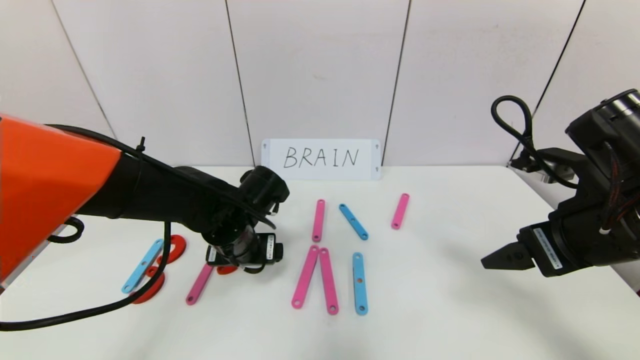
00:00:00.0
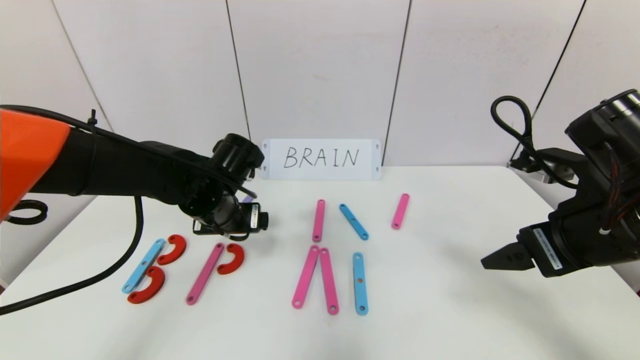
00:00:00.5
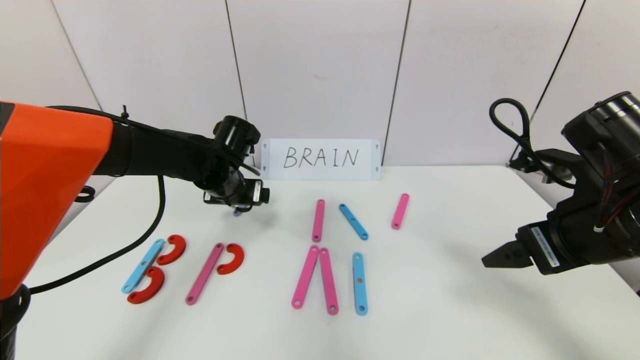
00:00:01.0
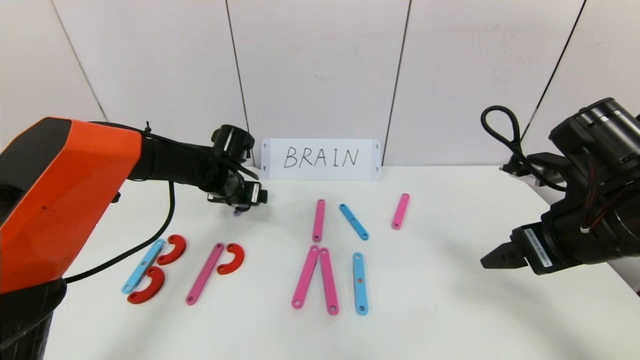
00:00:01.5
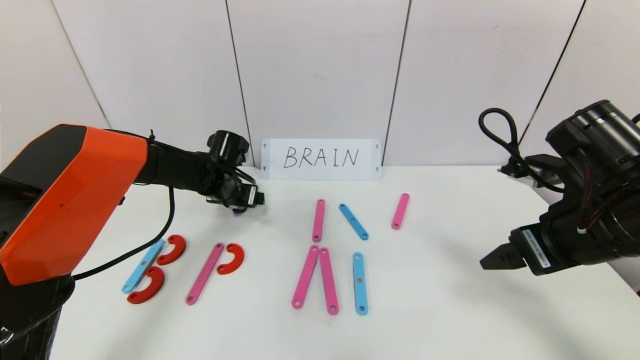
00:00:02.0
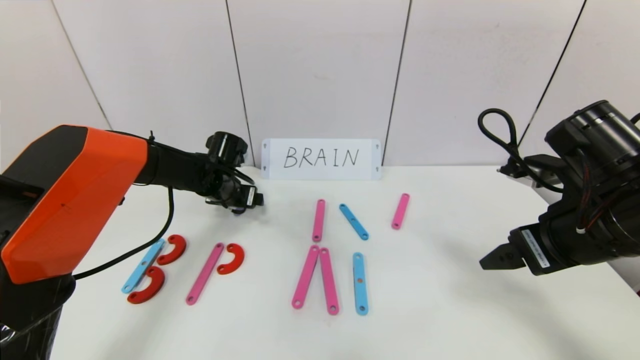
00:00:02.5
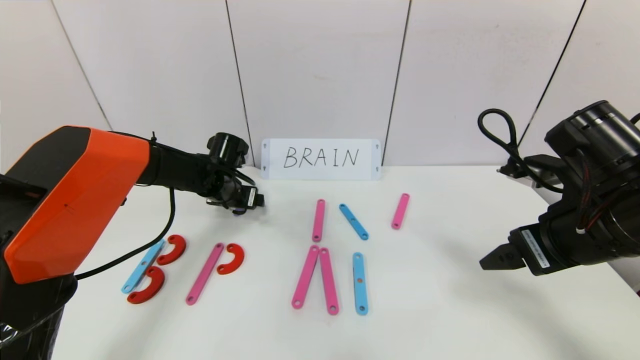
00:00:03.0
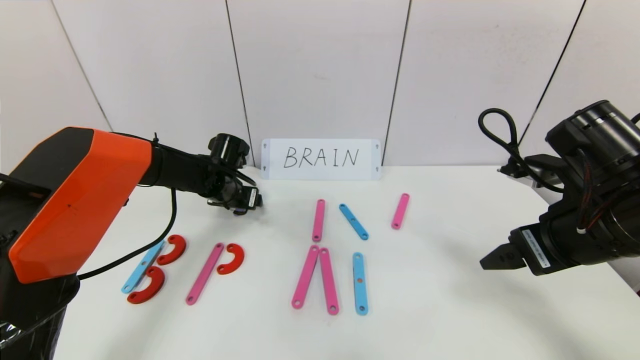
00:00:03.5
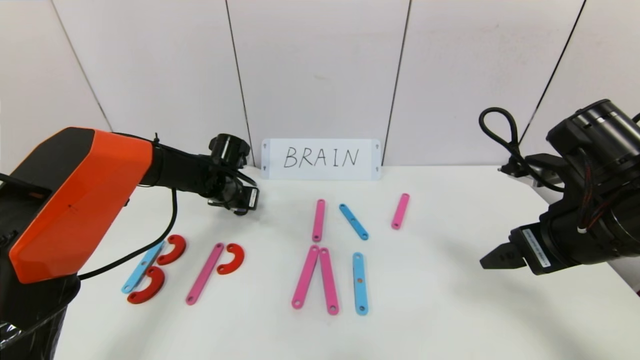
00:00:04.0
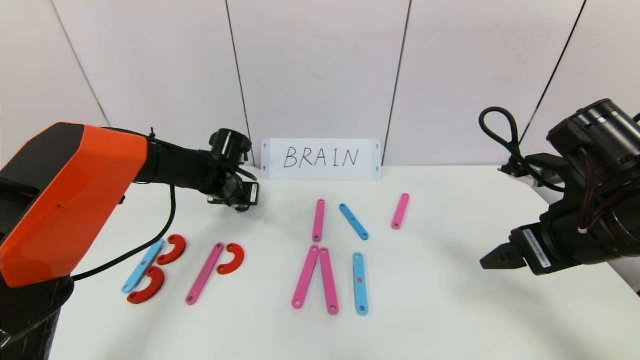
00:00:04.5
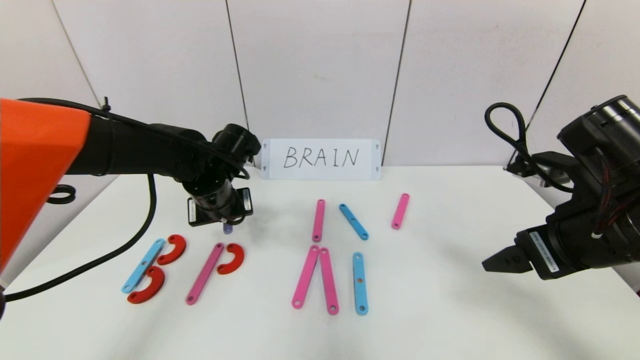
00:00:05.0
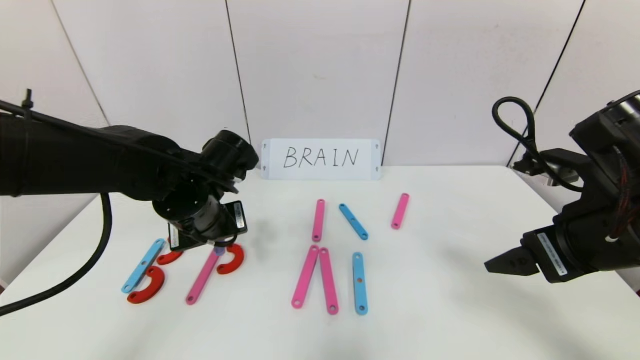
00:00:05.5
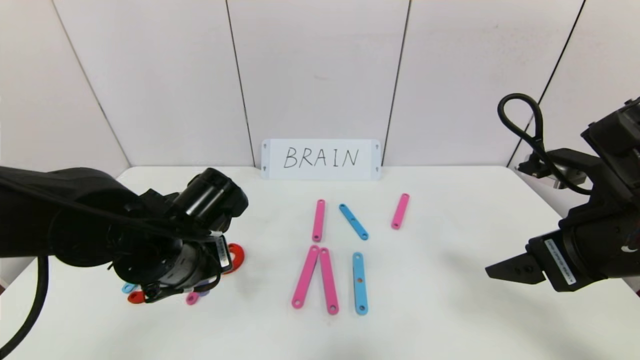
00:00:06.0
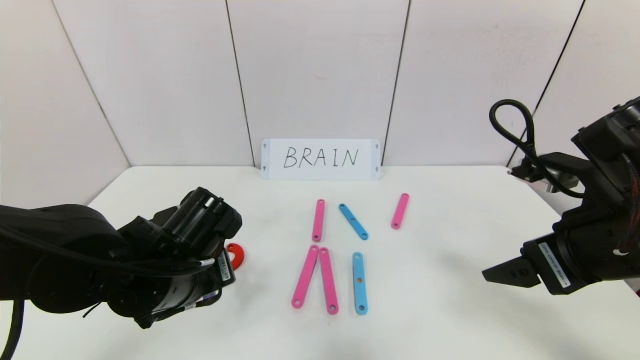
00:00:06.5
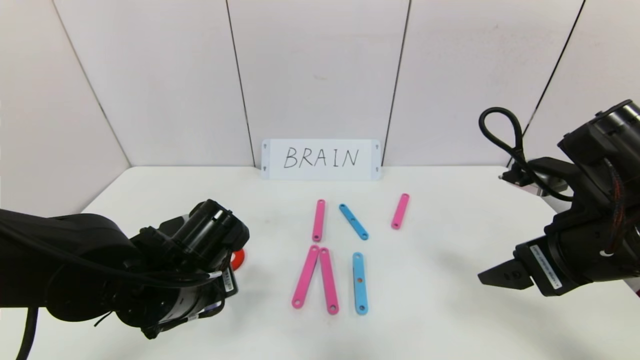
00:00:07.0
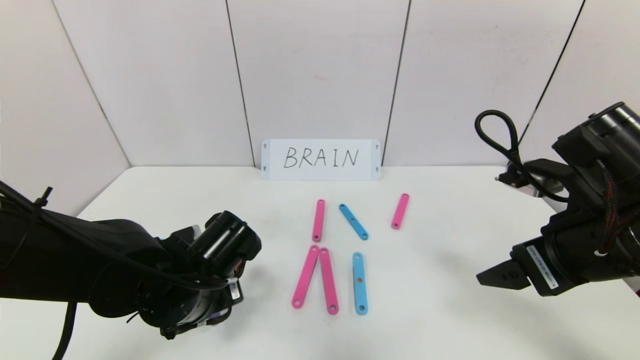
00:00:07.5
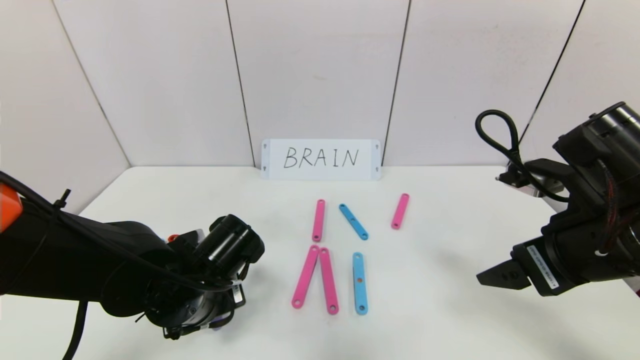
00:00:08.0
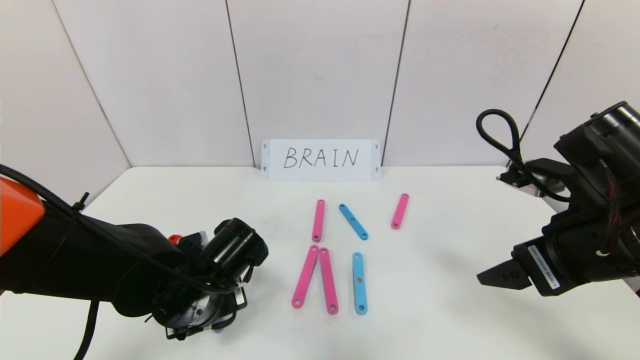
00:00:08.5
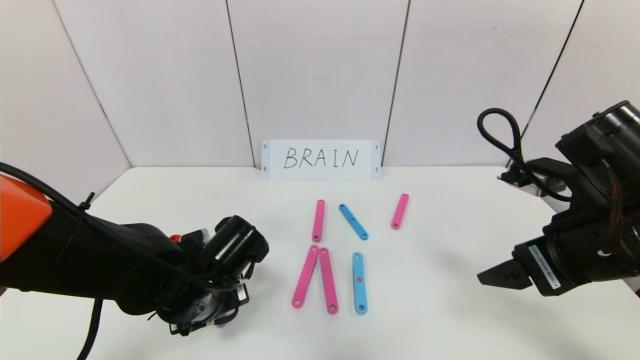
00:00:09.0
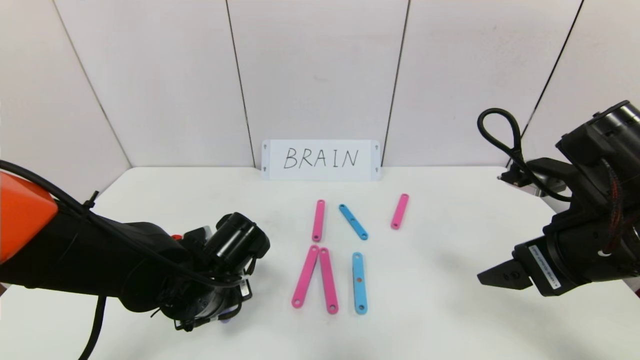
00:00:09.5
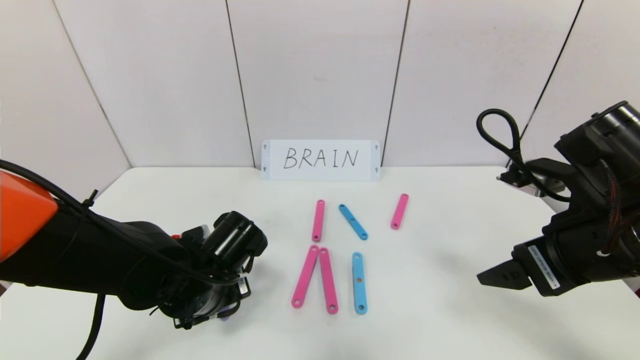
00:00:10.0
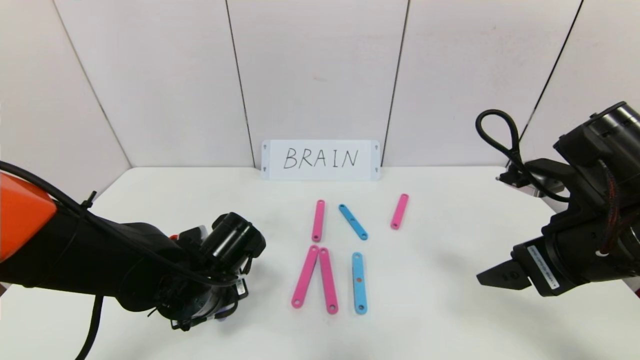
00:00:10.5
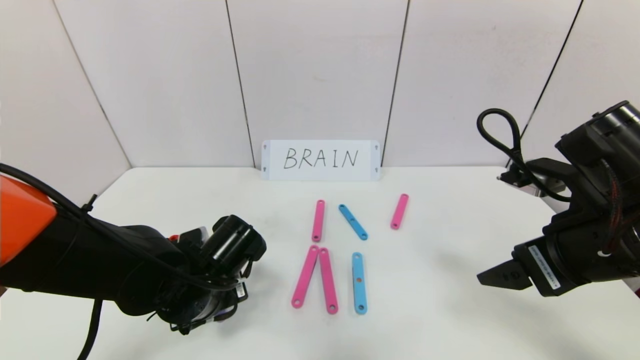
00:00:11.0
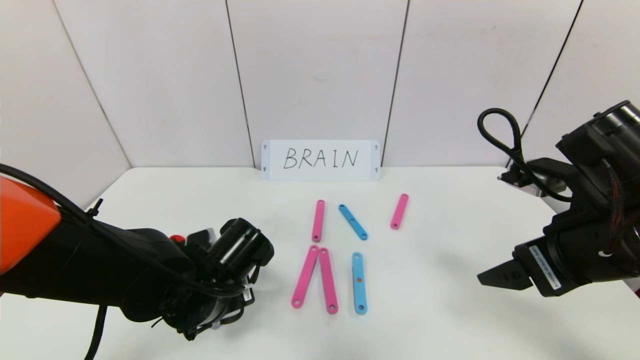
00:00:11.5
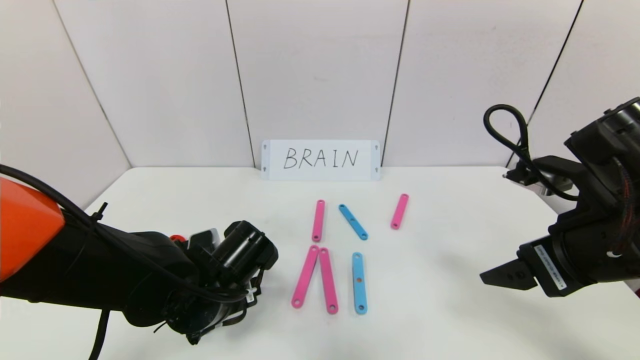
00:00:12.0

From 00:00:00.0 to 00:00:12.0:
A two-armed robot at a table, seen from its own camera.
Task of the whole recording: rearrange the word baai as brain.
From 00:00:00.0 to 00:00:02.0: The left gripper heads forward and to the left, covering roughly 15 cm.
From 00:00:02.0 to 00:00:04.0: The left gripper closes.
From 00:00:04.0 to 00:00:06.0: The left gripper goes some 20 cm backward.
From 00:00:06.0 to 00:00:08.0: The left gripper is displaced downward by approximately 5 cm.
From 00:00:08.0 to 00:00:10.0: The grippers make only small movements.
From 00:00:10.0 to 00:00:12.0: The left gripper opens its fingers.

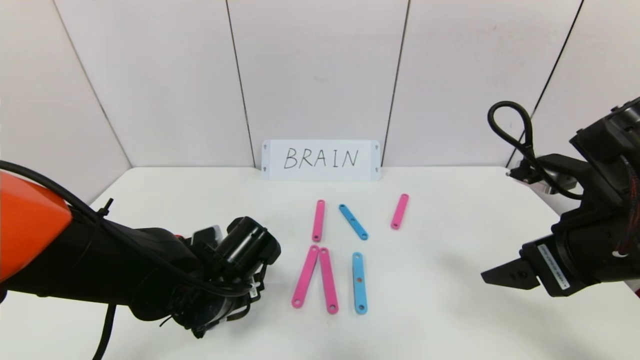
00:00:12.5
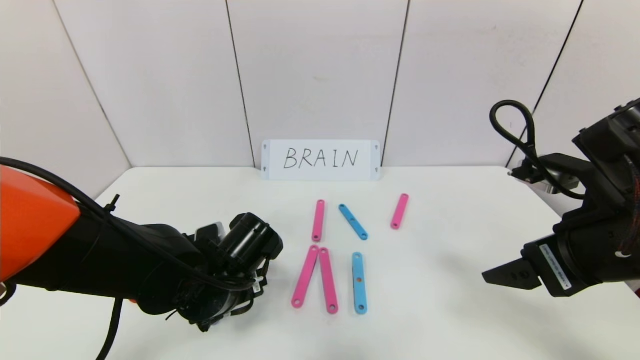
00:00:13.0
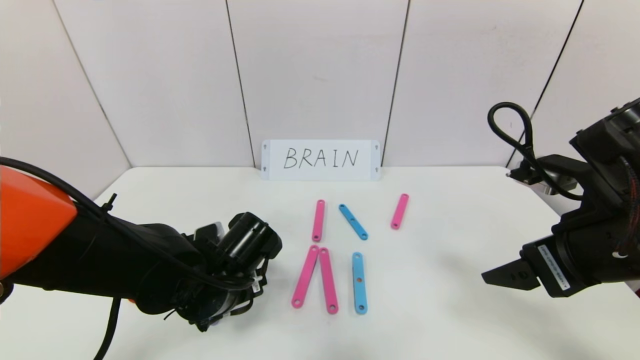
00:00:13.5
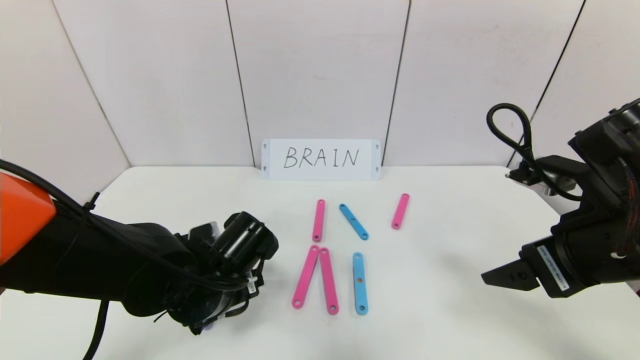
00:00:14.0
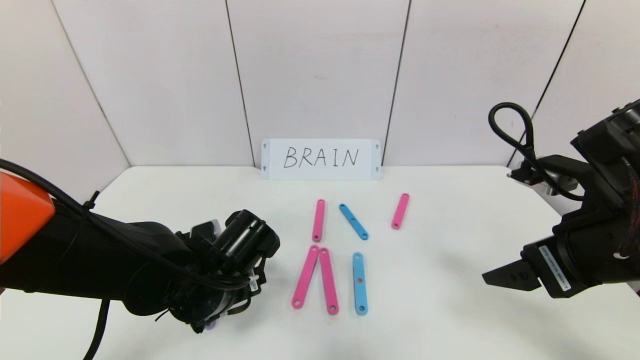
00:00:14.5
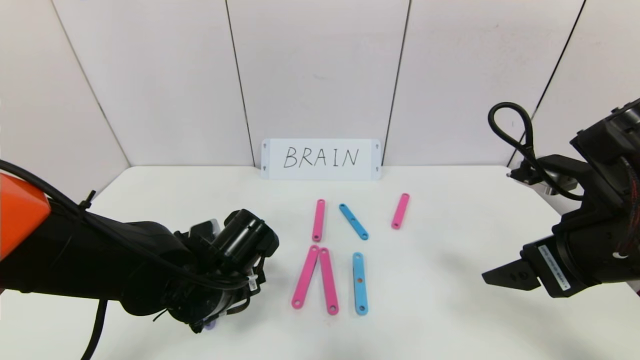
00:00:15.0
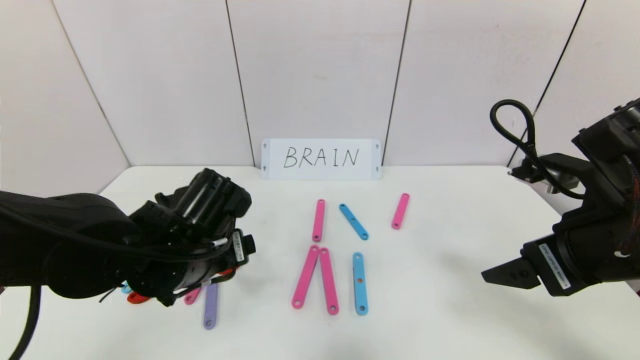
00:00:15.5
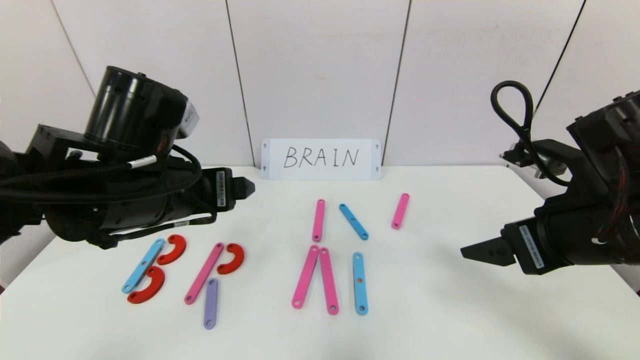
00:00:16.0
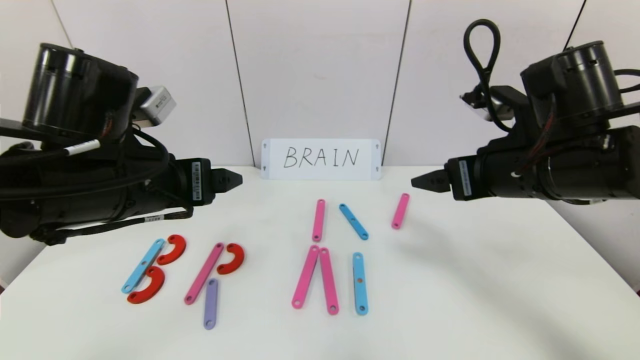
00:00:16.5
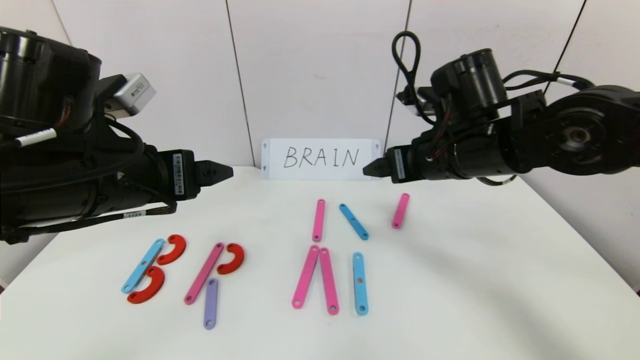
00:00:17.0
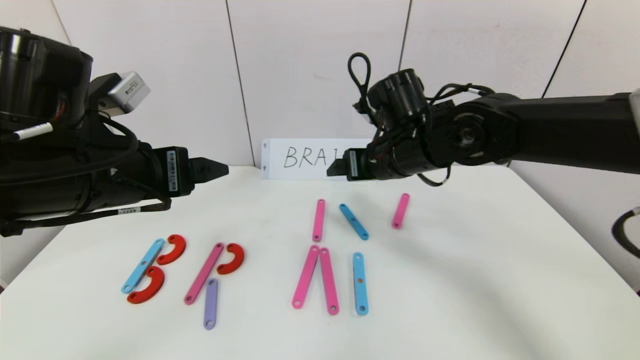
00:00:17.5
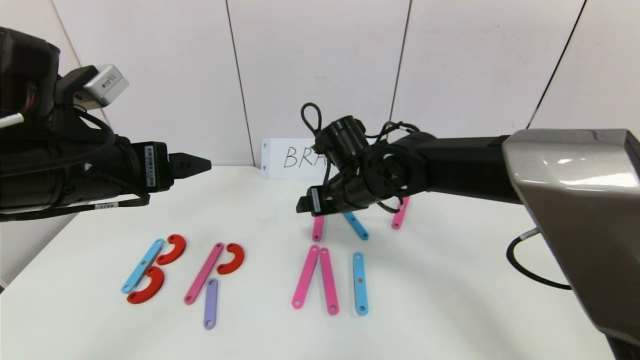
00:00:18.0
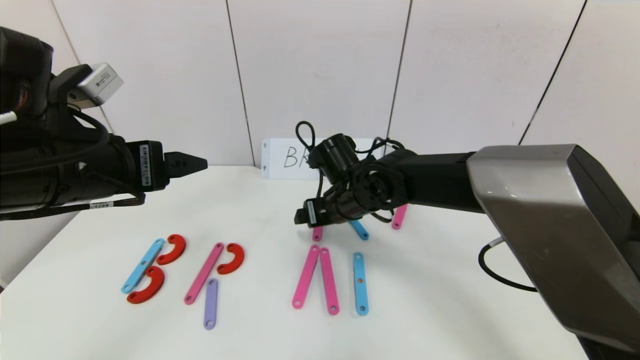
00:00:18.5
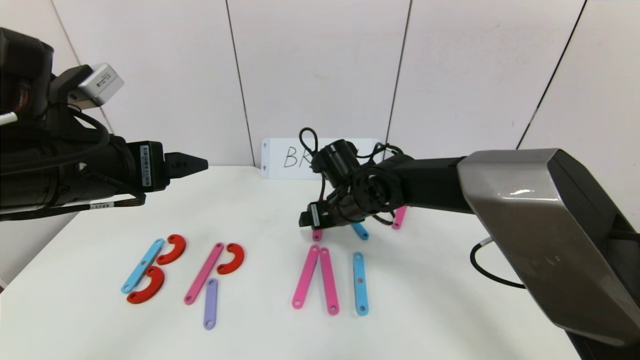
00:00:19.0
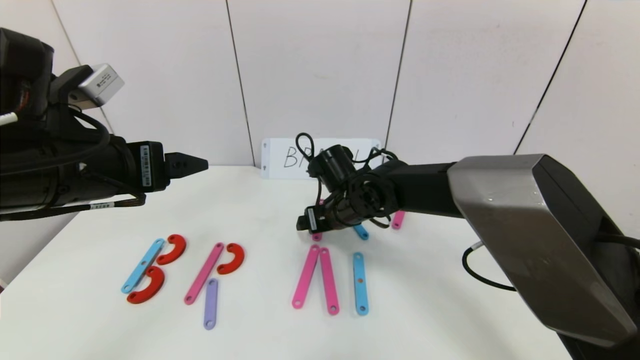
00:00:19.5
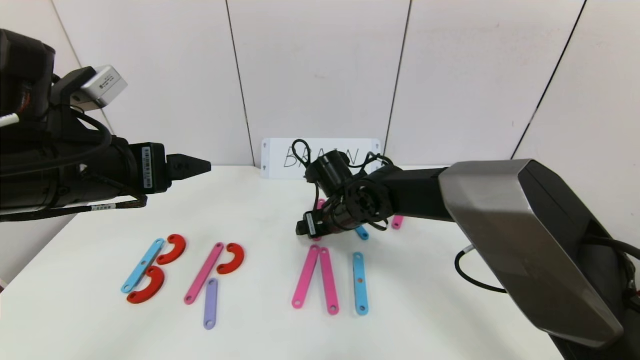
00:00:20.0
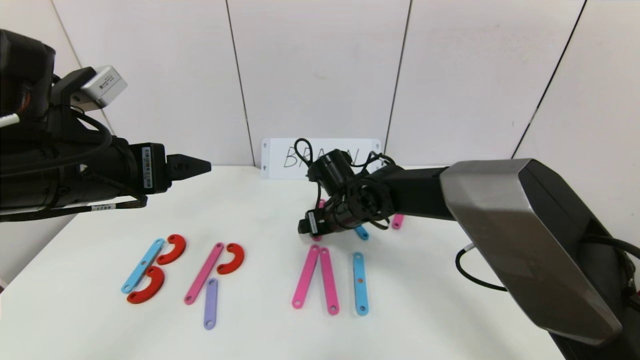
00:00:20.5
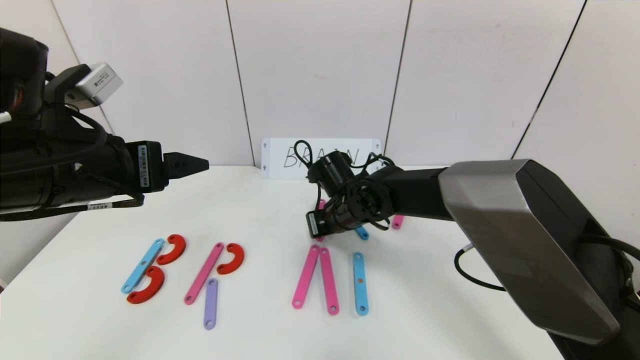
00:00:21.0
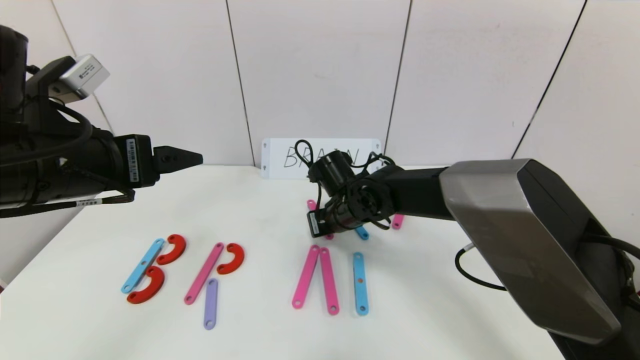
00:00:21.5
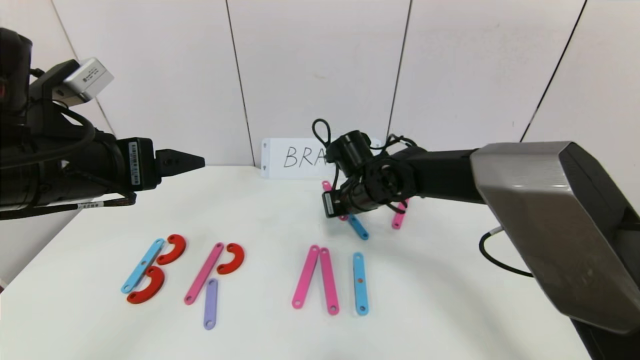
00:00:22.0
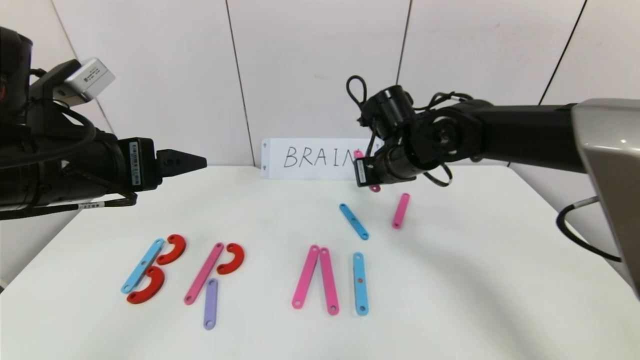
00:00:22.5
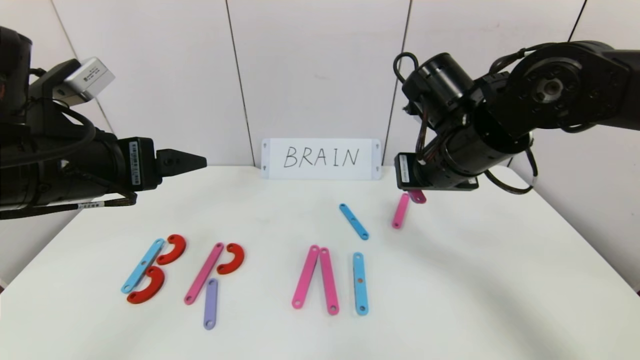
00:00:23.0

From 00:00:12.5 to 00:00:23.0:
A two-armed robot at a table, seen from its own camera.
Task of the whole recording: rearrange the word baai as brain.
Step, from 00:00:12.5 to 00:00:15.5: Place the character R between first character B and third character A.
From 00:00:12.5 to 00:00:14.5: The grippers stay close to where they were, moving slightly.
From 00:00:14.5 to 00:00:16.5: The left gripper travels upward by roughly 15 cm, while the right gripper shifts about 5 cm forward.
From 00:00:16.5 to 00:00:19.0: The right gripper travels to the left, downward and forward by about 25 cm.
From 00:00:19.0 to 00:00:21.0: The right gripper closes up.
From 00:00:21.0 to 00:00:23.0: The right gripper moves upward, to the right and backward, about 20 cm.
